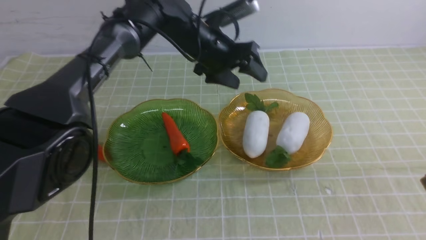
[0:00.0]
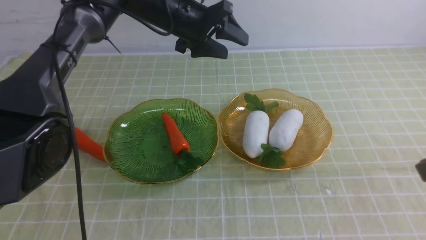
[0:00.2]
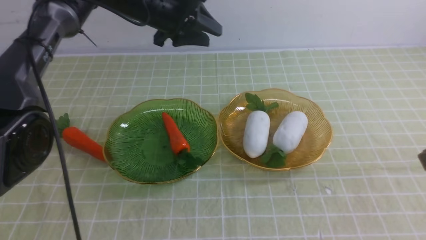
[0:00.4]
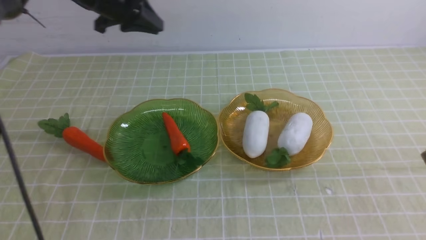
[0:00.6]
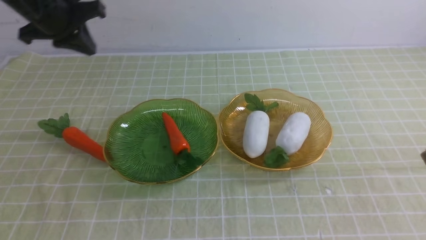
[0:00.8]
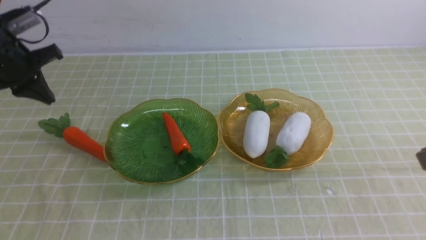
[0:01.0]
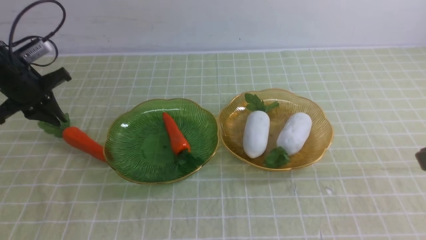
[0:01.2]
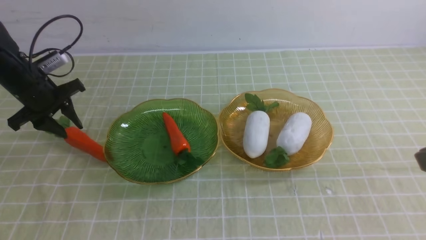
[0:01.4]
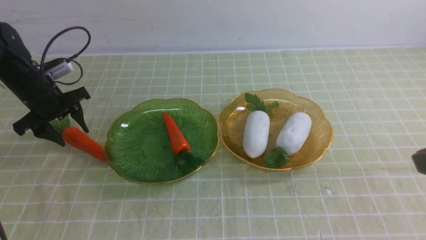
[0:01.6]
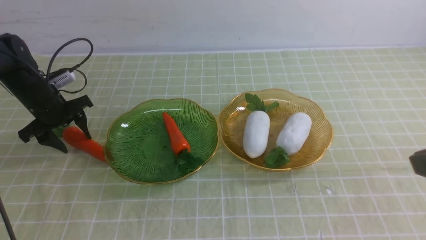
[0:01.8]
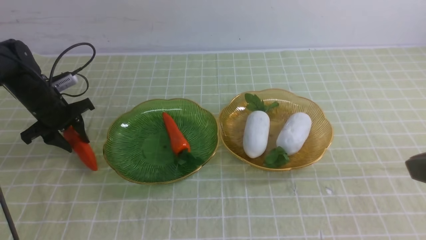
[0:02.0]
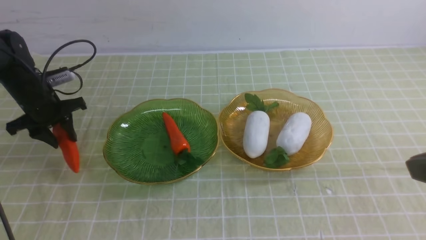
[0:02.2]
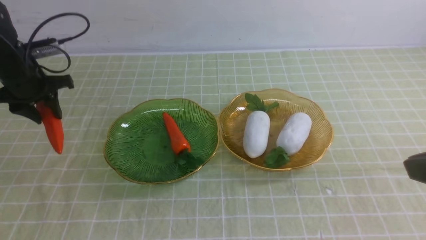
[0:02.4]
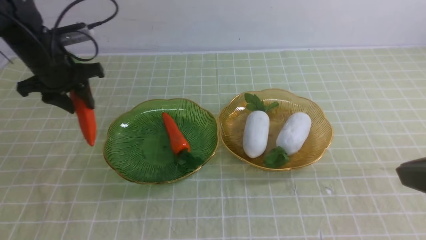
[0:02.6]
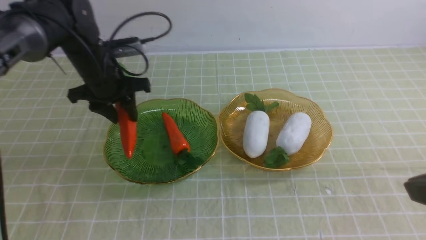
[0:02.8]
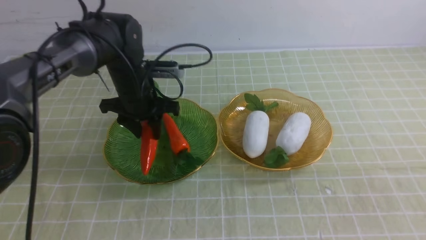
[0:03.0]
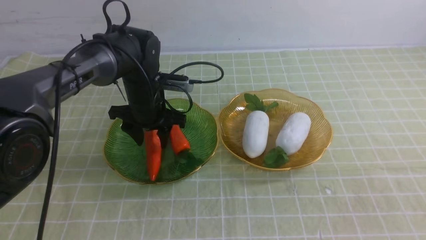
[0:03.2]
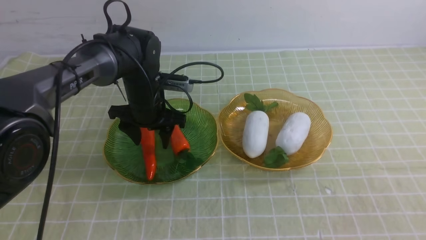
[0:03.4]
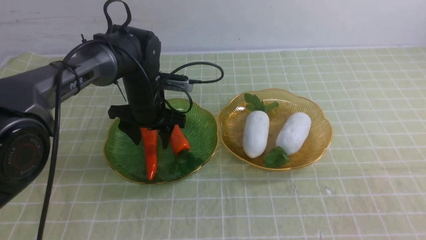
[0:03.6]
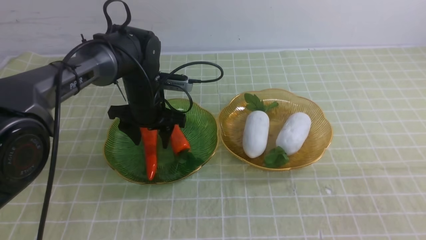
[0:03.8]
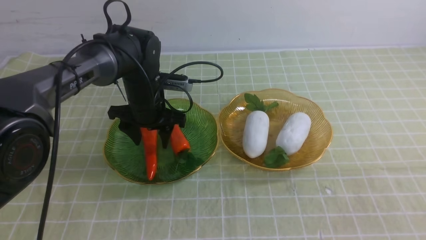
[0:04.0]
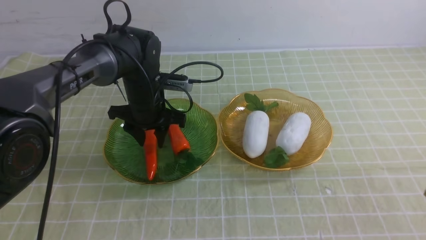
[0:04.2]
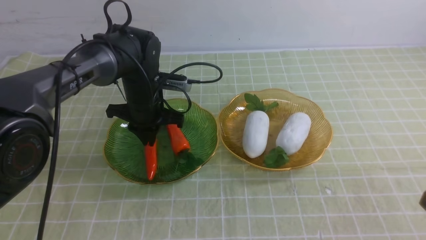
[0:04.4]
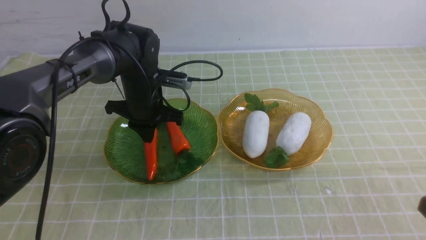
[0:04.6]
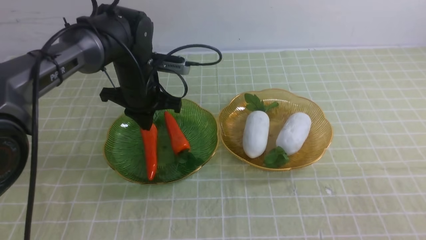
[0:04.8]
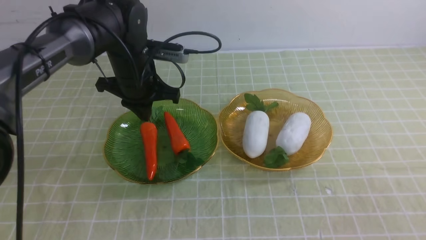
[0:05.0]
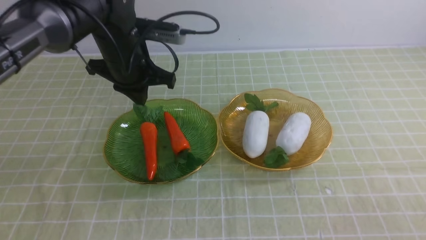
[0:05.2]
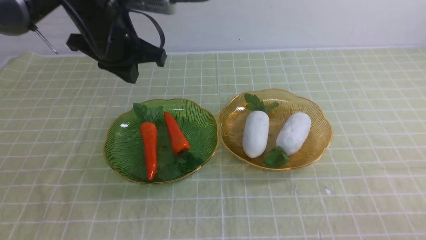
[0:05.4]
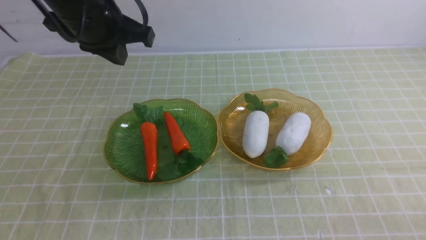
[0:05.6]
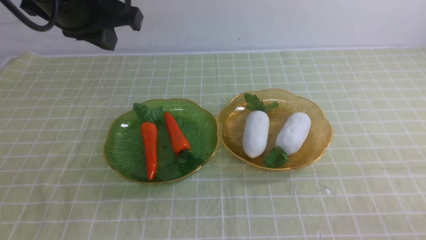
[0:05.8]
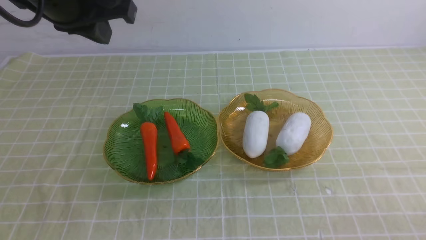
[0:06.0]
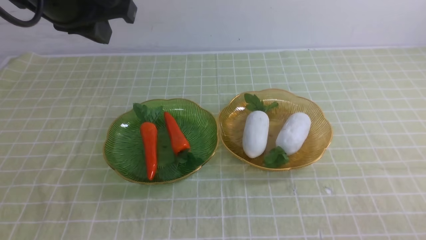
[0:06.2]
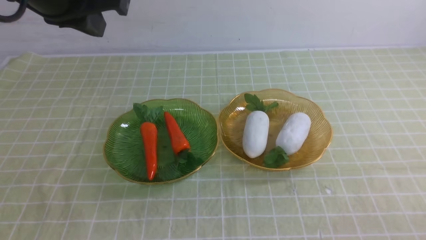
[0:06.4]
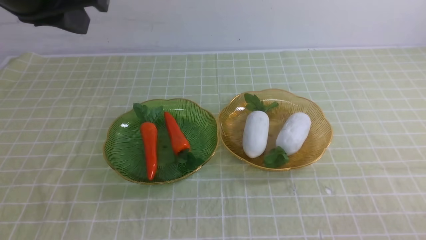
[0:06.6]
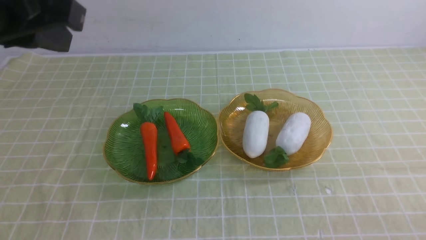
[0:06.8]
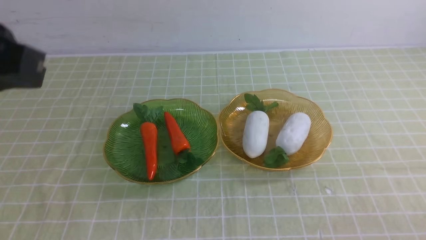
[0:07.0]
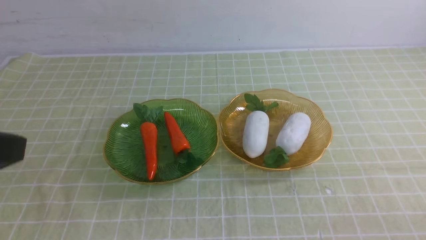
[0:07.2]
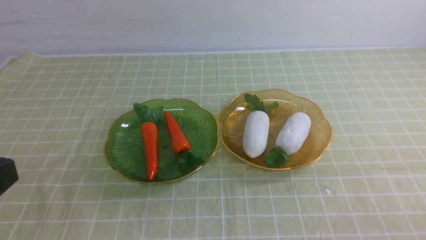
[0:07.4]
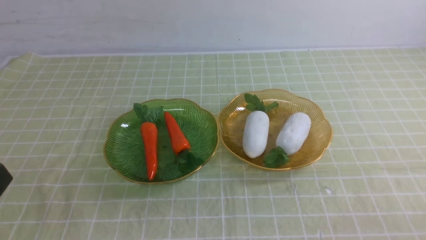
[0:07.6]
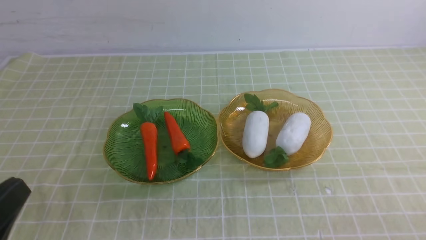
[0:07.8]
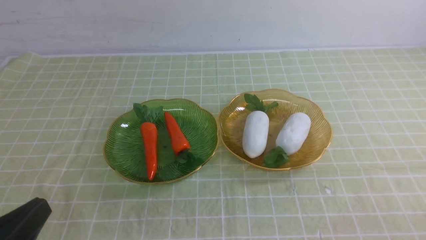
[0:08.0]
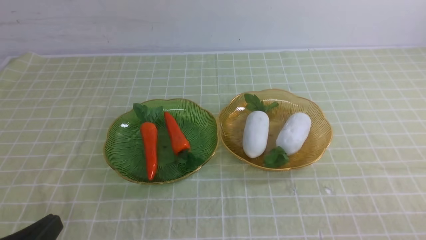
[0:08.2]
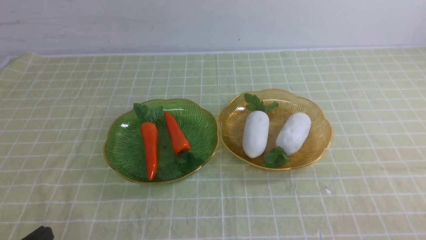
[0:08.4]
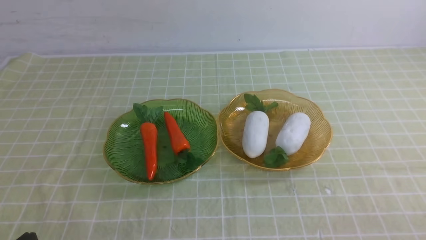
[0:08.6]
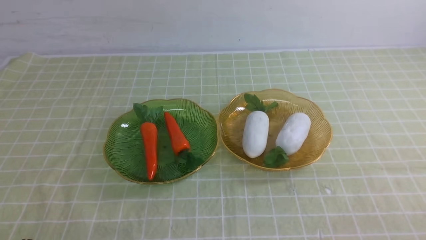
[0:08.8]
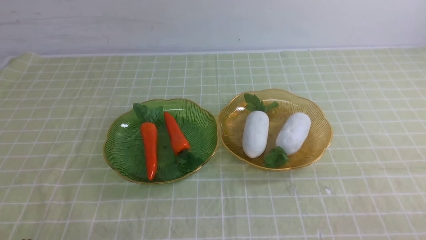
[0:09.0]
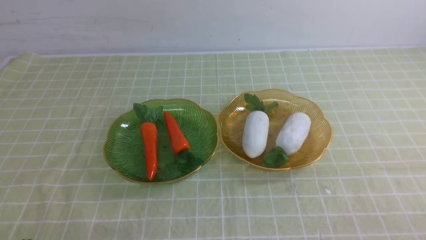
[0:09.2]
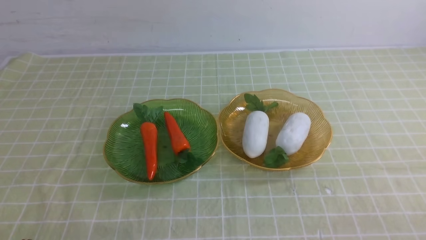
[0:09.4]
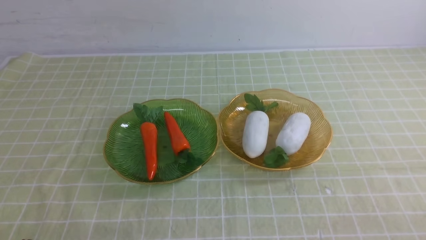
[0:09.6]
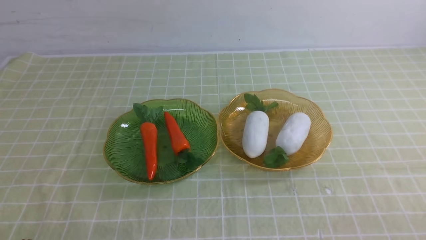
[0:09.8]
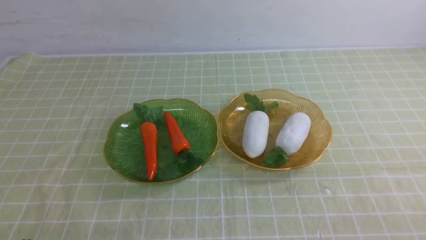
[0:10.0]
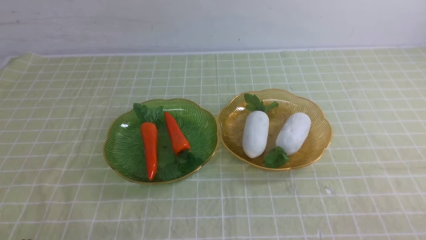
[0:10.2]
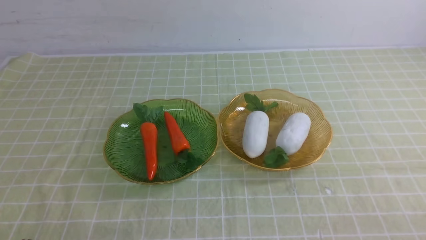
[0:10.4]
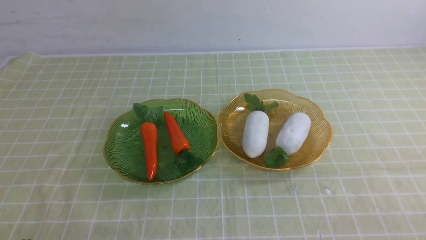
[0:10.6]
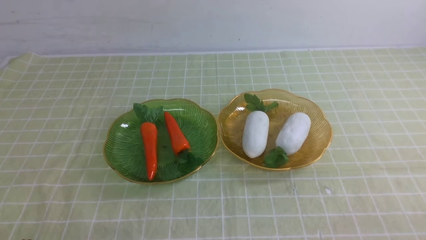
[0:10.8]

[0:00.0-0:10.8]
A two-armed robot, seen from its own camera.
Step, 0:00.6 to 0:03.8: use the left arm to grab a carrot and put it into the left plate.
0:00.0 to 0:01.6: The left gripper is displaced to the left by approximately 30 cm, and closes and opens again.
0:01.6 to 0:03.0: The right gripper ends up some 5 cm from where it was; the left gripper travels to the right by roughly 20 cm.
0:03.0 to 0:04.6: The left gripper closes its fingers, while the right gripper shifts roughly 10 cm downward.
0:04.6 to 0:06.2: The left gripper heads upward and backward, covering approximately 25 cm; the right gripper is displaced downward by about 10 cm.
0:06.2 to 0:07.8: The left gripper heads backward and downward, covering about 30 cm.
0:07.8 to 0:09.2: The left gripper shifts about 10 cm downward.
0:09.2 to 0:10.8: Neither gripper changes place.
